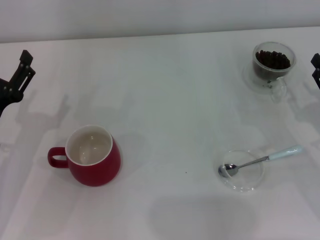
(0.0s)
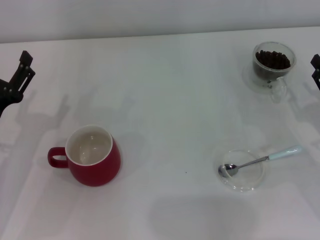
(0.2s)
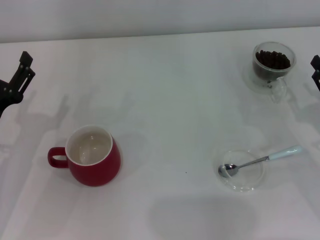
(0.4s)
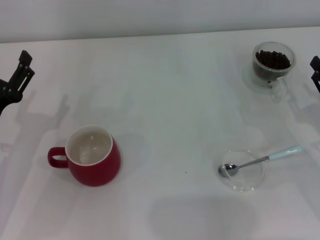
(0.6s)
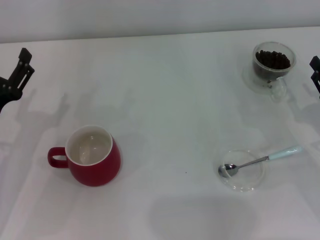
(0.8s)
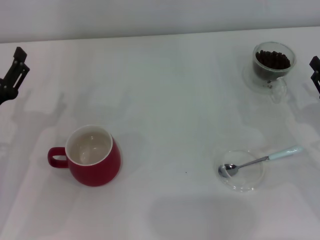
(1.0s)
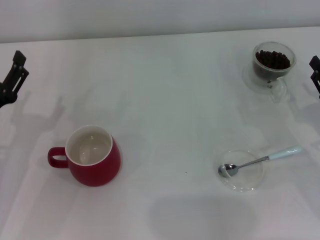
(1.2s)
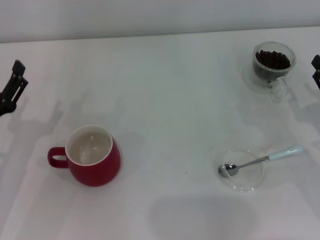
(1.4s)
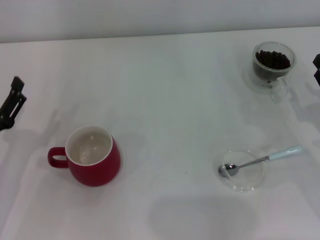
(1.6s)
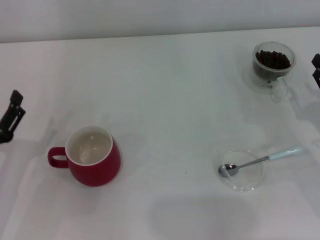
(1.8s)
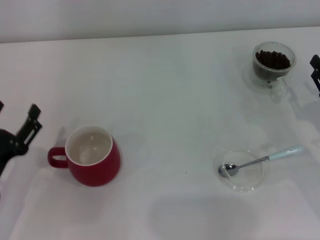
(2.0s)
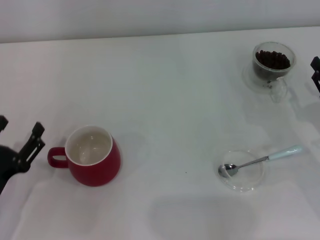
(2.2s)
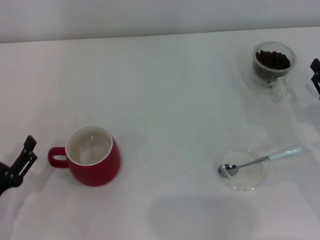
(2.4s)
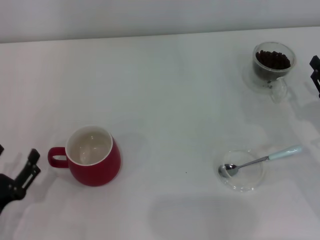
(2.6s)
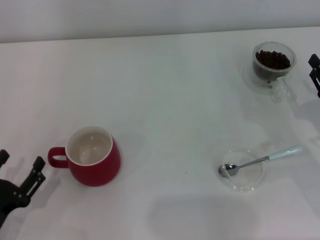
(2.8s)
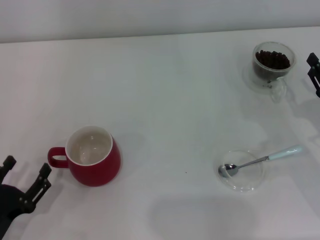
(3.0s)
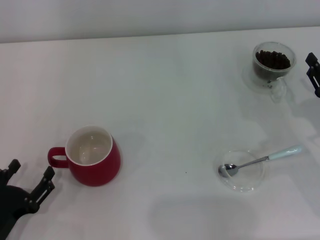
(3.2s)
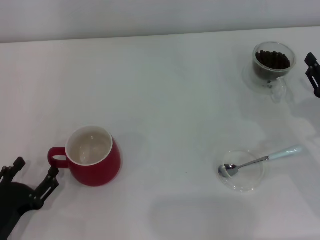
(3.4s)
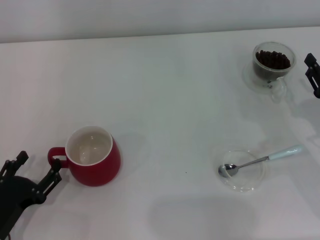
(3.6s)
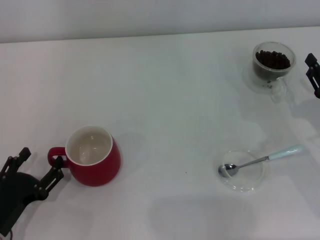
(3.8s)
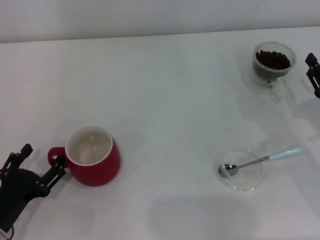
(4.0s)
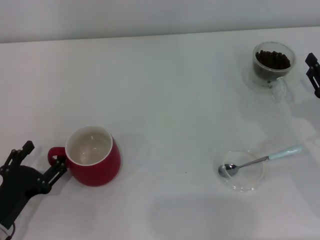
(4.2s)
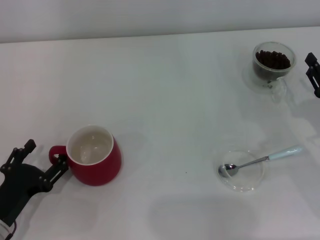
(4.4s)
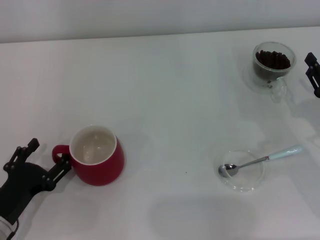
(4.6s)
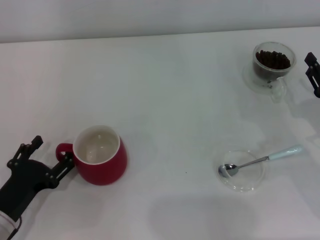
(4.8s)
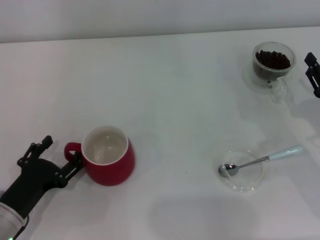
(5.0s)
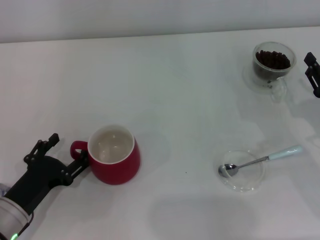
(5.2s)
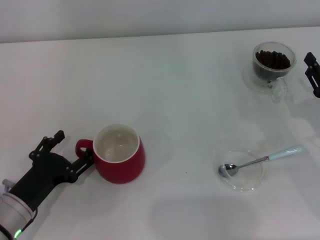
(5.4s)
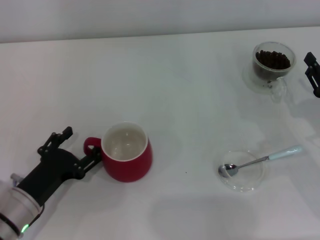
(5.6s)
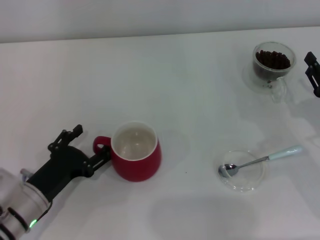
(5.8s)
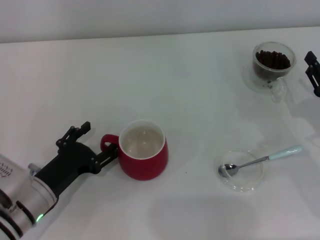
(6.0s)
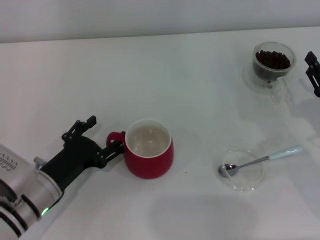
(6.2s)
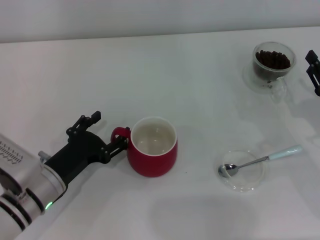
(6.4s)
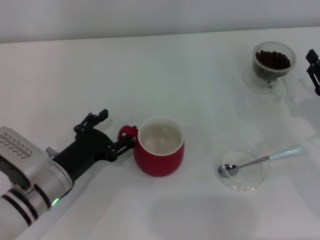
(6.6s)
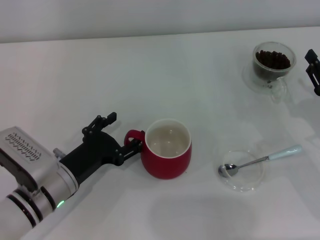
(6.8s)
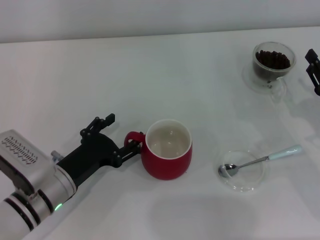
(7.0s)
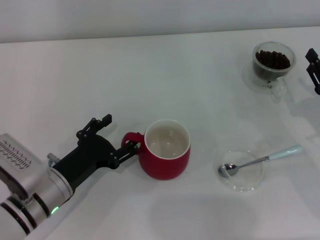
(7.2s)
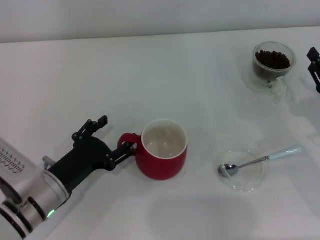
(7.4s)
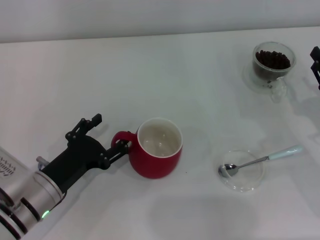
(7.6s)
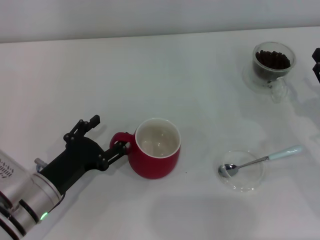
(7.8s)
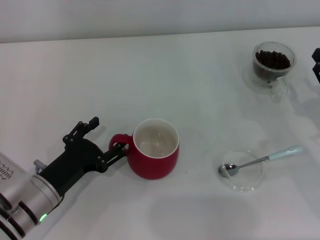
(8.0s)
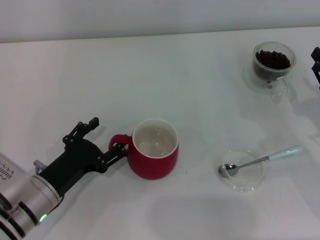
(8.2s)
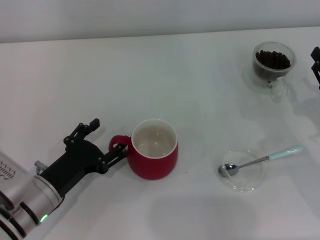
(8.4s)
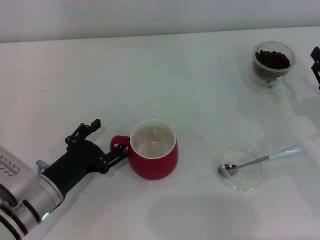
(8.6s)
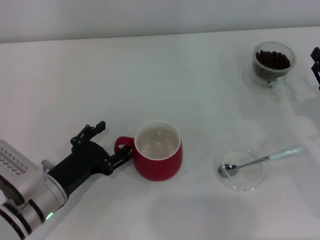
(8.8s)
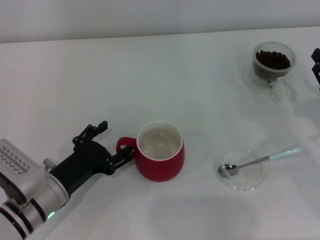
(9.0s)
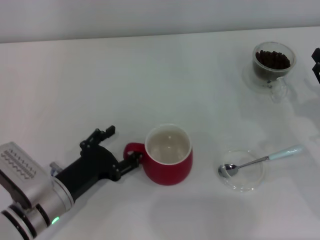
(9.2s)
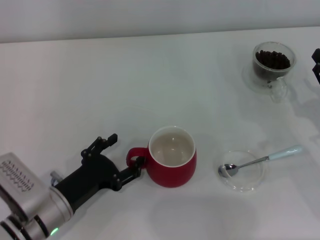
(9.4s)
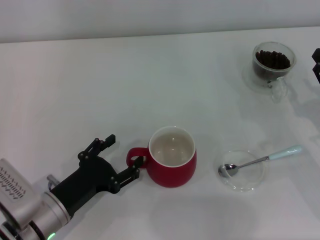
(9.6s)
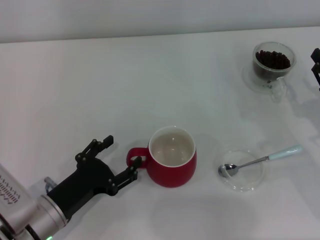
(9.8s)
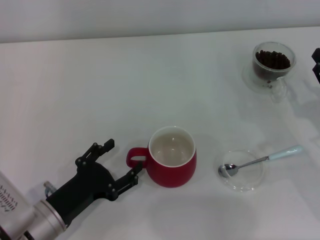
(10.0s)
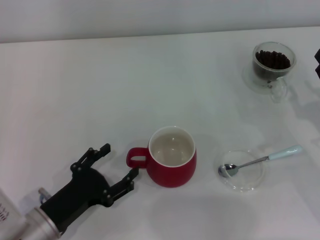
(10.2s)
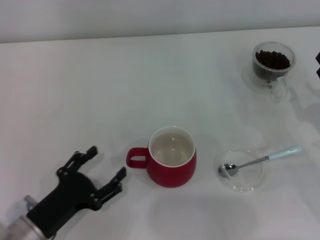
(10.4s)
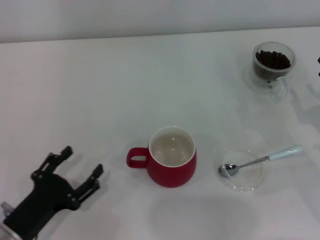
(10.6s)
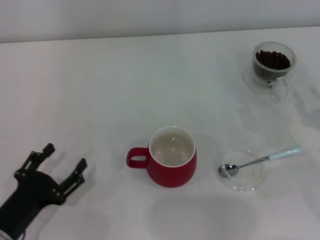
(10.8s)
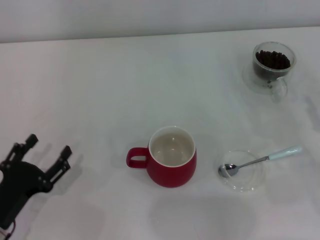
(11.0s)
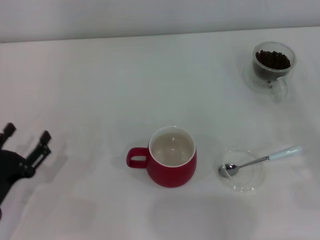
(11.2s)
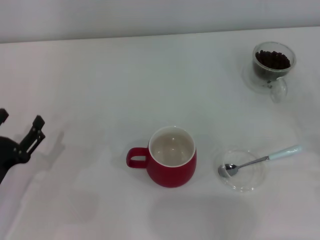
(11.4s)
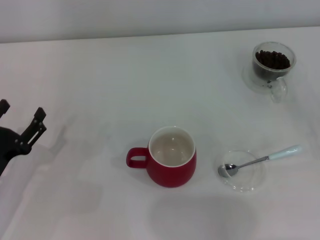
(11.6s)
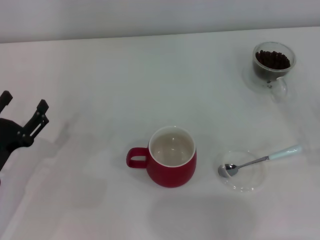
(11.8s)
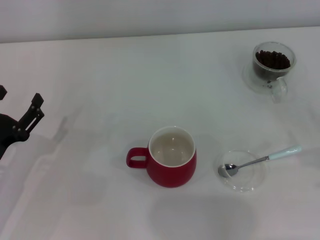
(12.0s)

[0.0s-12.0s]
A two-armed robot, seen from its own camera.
Task of the whole recording: Use a blue spoon to take out the coffee beans from the glass and pour them into the red cup.
Step, 0.0s to 10.6s: Move the cup to the center of view with the left gripper.
0.0s to 1.6s: There are only small adjustments of the grippers.
1.6s to 3.0s: The left gripper travels backward by approximately 10 cm.
3.0s to 4.4s: The grippers make only small movements.
4.4s to 6.0s: The left gripper travels to the right by approximately 5 cm.
6.0s to 7.6s: There are only small adjustments of the grippers.
7.6s to 9.0s: Both grippers stay put.
9.0s to 10.4s: The left gripper moves backward, some 5 cm.
10.4s to 12.0s: The left gripper moves to the left and forward, some 10 cm. The right gripper goes about 10 cm backward and to the right.

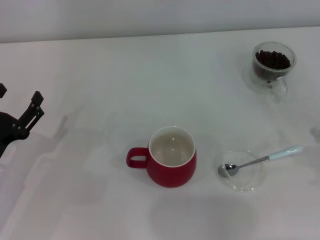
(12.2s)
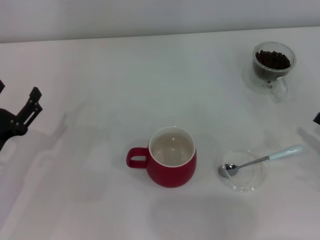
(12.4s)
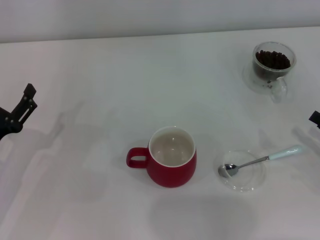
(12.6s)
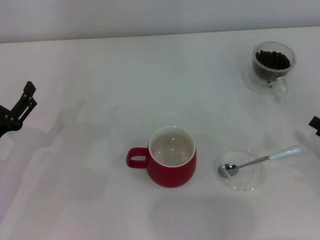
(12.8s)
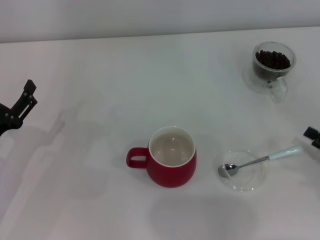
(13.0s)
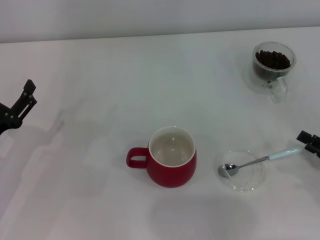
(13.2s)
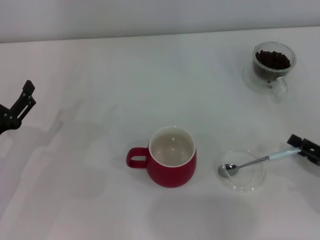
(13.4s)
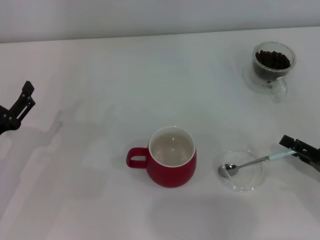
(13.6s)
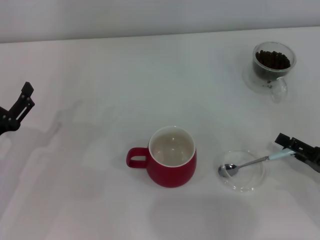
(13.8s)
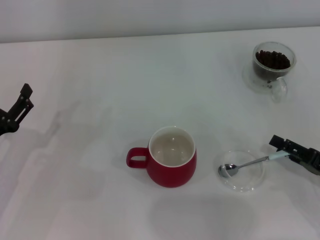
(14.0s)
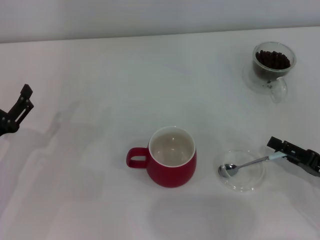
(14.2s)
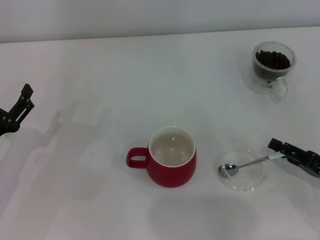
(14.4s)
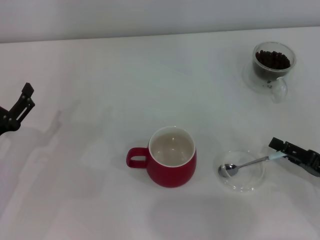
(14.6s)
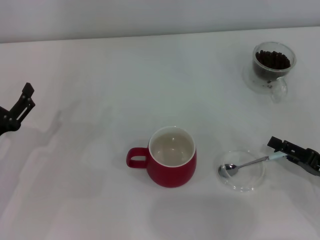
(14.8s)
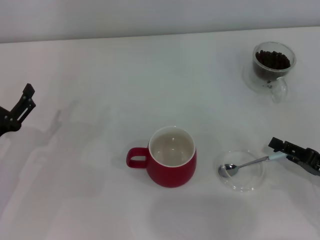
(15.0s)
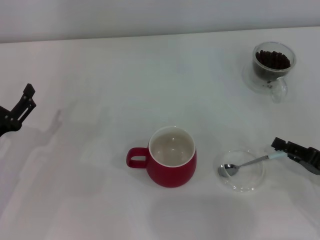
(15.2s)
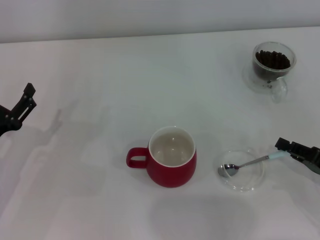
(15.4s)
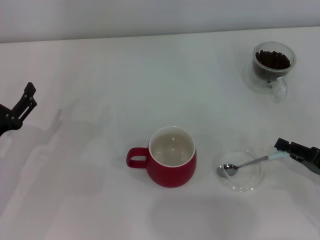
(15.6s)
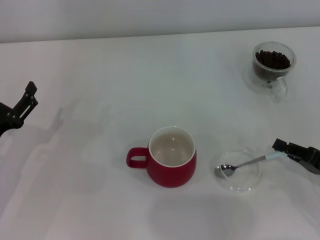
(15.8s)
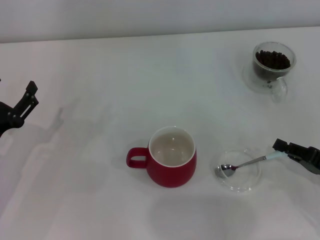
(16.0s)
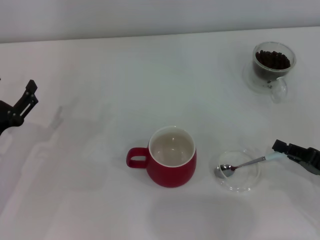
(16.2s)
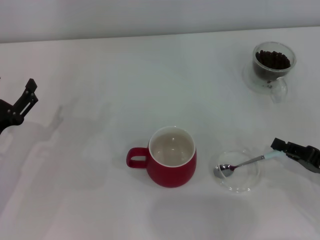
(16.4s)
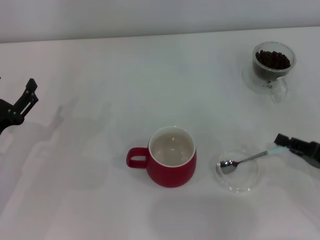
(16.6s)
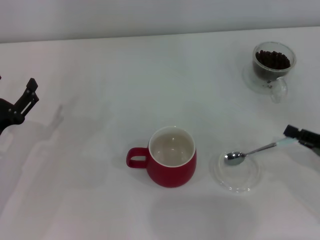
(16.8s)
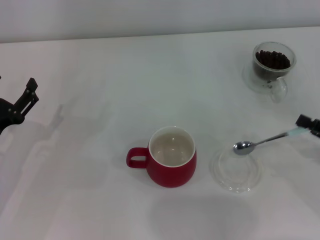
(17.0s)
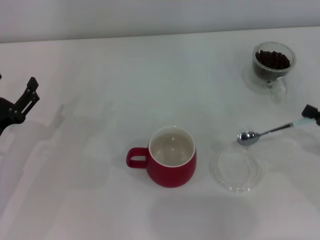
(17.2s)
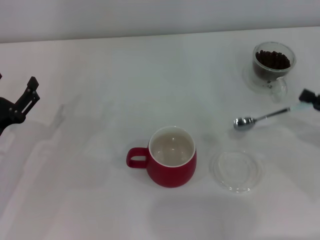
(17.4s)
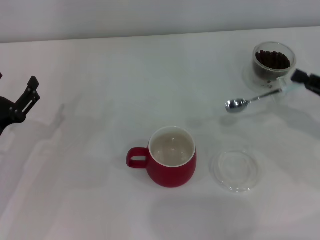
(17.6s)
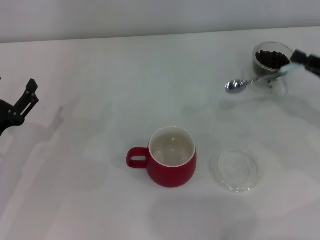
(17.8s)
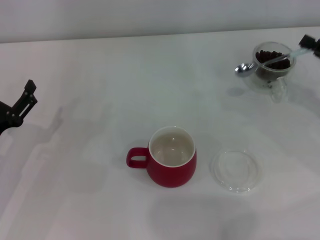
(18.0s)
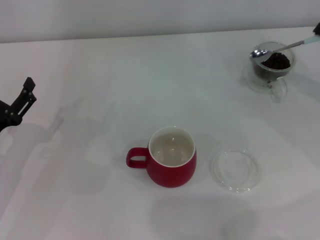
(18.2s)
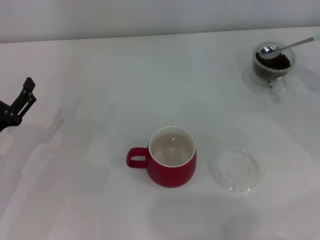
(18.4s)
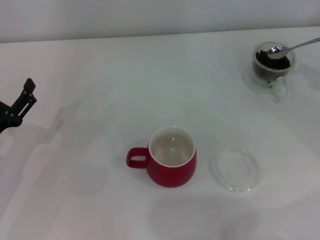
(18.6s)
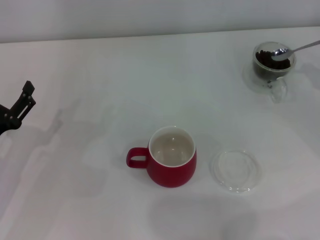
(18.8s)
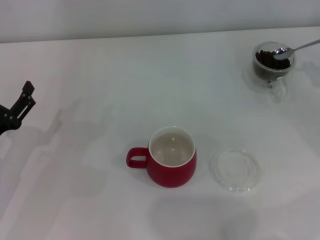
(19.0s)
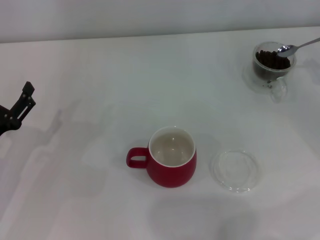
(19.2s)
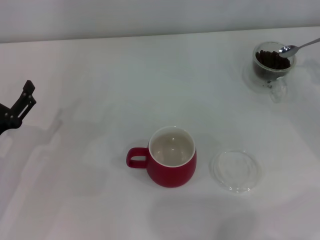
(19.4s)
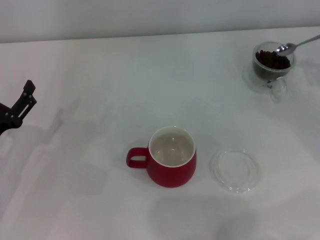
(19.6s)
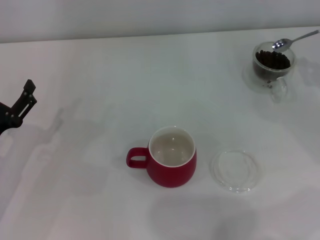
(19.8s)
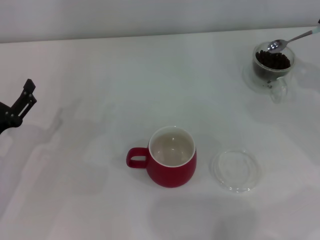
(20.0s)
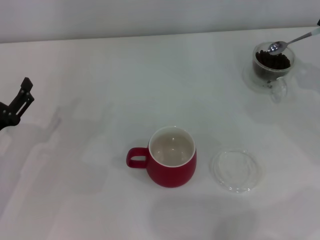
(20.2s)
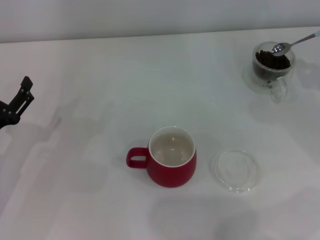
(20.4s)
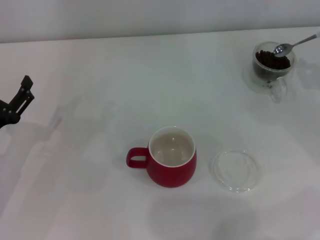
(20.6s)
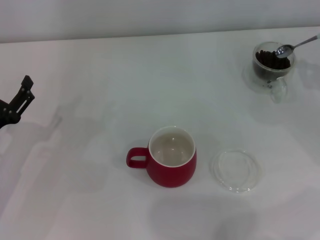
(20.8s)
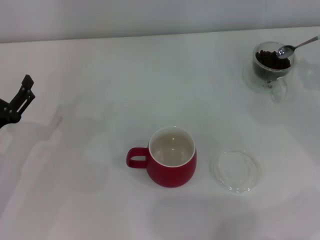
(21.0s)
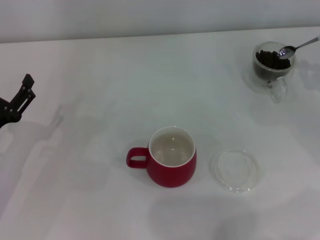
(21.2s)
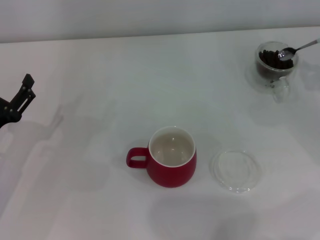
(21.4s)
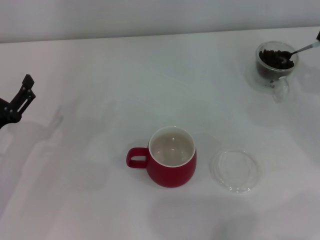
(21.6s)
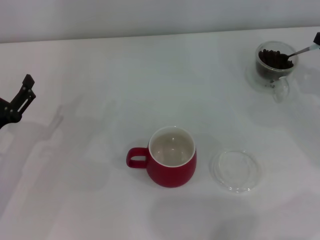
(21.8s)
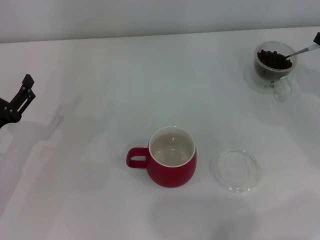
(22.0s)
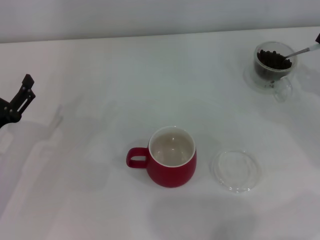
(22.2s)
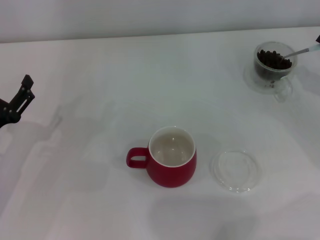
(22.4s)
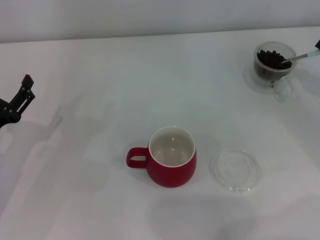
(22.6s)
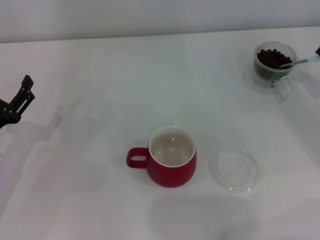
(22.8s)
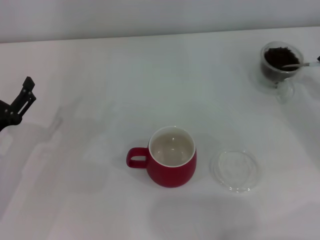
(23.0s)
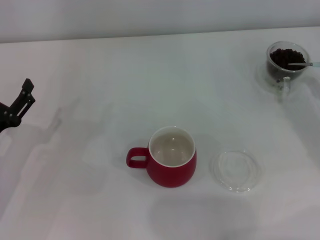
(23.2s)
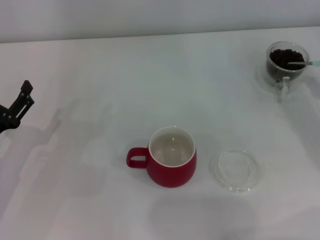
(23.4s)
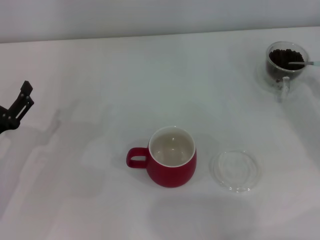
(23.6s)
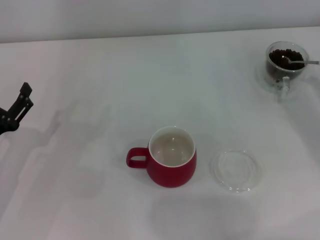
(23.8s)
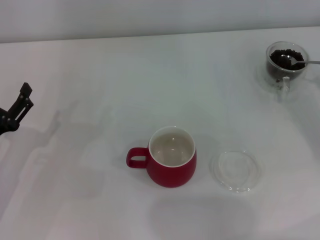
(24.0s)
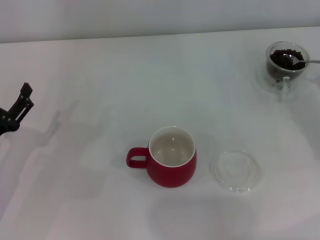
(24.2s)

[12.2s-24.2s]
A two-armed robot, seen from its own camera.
Task of the whole recording: Use a blue spoon to take out the coffee beans from the glass and pour them into the red cup.
Step, 12.2s to 17.0s: Pick up the spoon with the right gripper.
12.2s to 13.8s: The right gripper shifts roughly 5 cm to the left.
13.8s to 15.2s: Neither gripper changes place.
15.2s to 16.6s: The right gripper closes.
16.6s to 18.2s: The right gripper travels forward, upward and to the right by roughly 15 cm.
19.8s to 21.2s: There are only small adjustments of the grippers.
22.6s to 24.2s: The grippers make only small movements.
